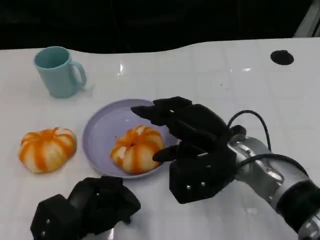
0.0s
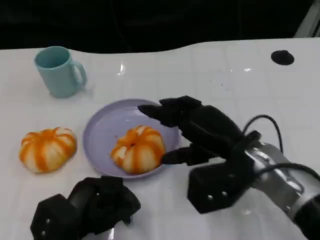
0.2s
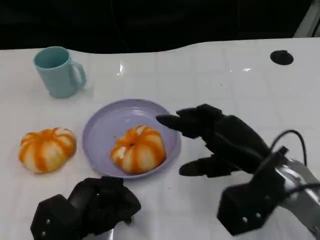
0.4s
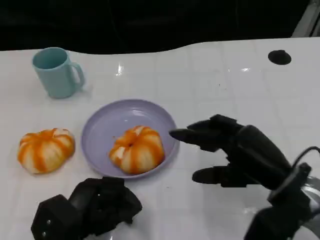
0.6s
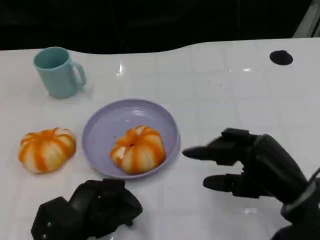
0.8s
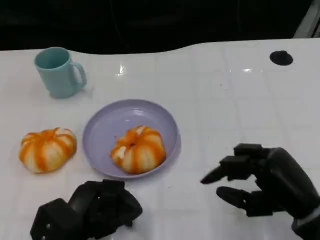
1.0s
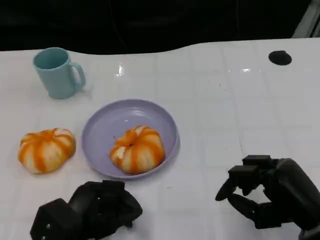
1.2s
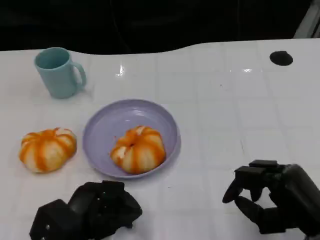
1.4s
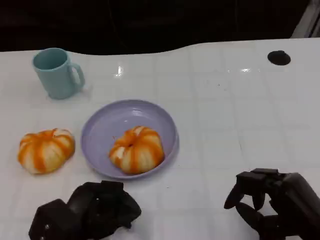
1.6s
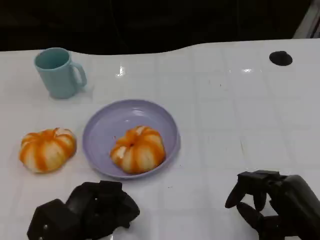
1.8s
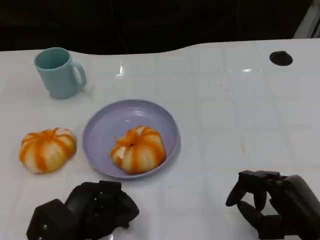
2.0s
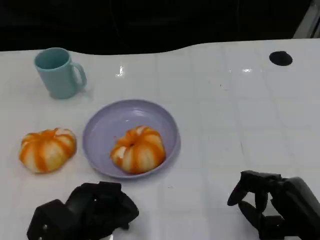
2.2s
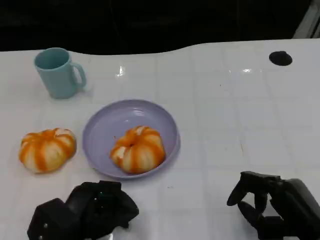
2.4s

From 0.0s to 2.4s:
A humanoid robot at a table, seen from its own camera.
Task of the whole recording: Grasp the bread from the table and place it into the plate.
From 0.0s to 1.2s: The right hand heads to the right and backward, covering roughly 15 cm.
From 1.2s to 2.4s: The hands make only small movements.

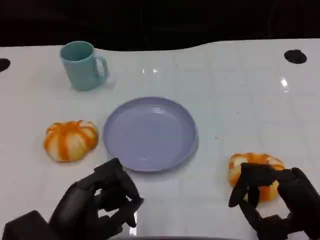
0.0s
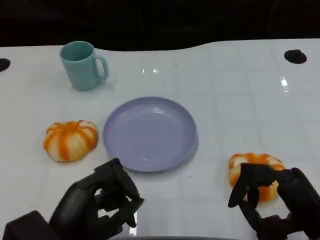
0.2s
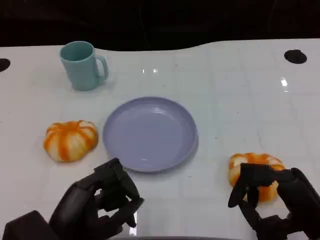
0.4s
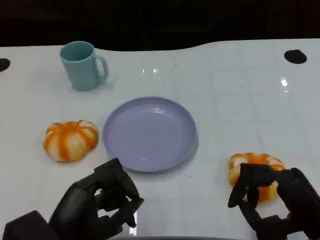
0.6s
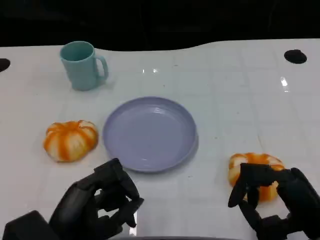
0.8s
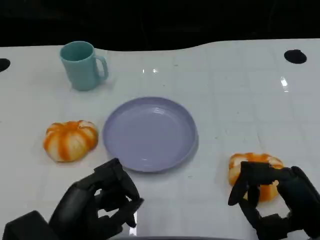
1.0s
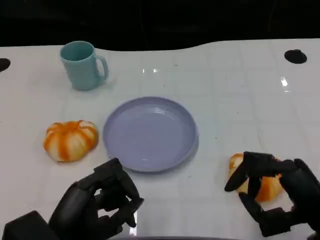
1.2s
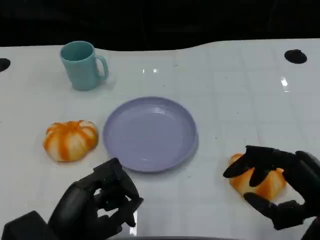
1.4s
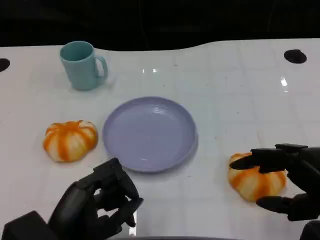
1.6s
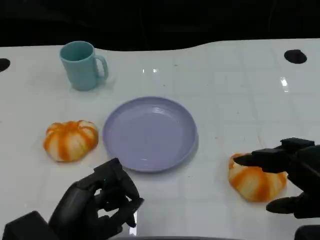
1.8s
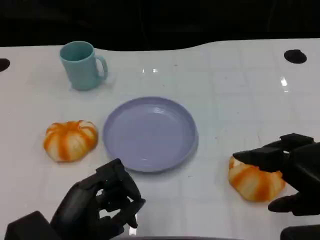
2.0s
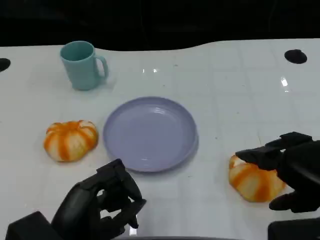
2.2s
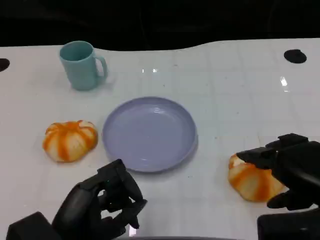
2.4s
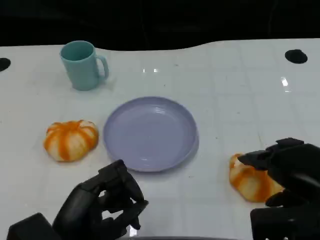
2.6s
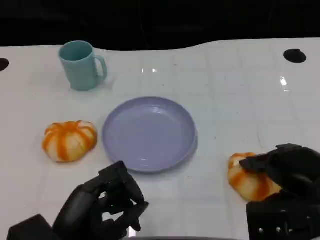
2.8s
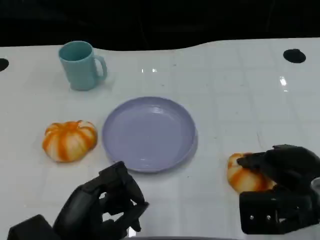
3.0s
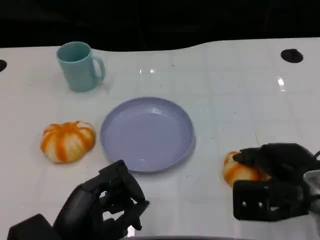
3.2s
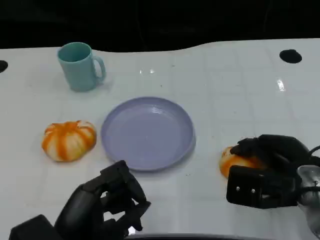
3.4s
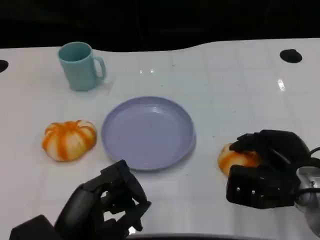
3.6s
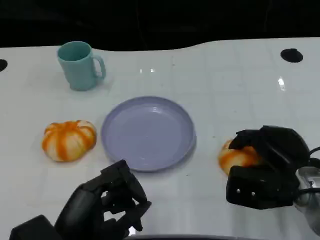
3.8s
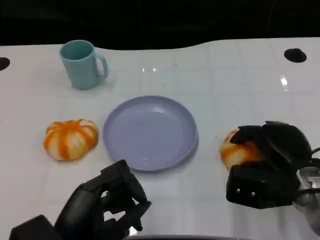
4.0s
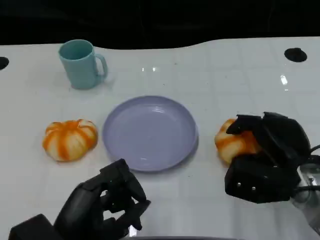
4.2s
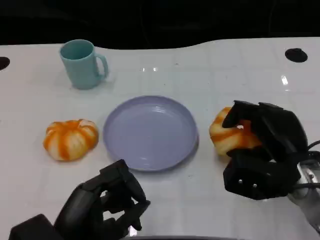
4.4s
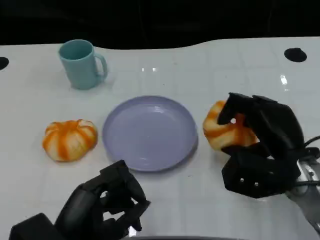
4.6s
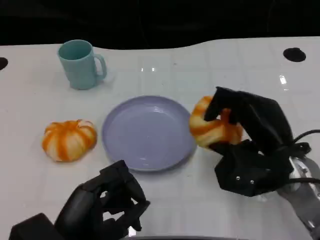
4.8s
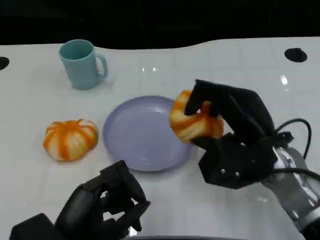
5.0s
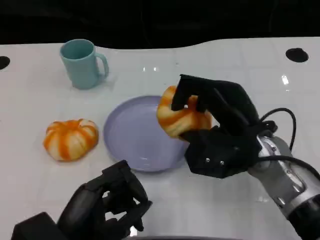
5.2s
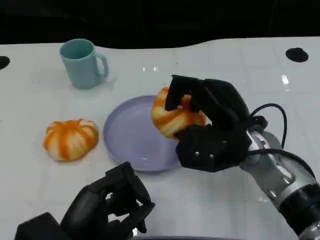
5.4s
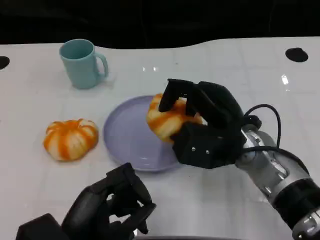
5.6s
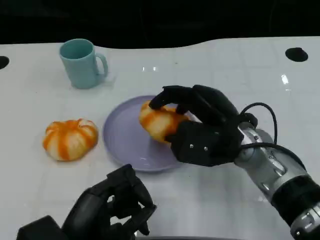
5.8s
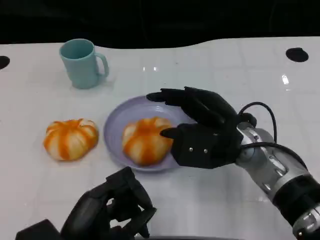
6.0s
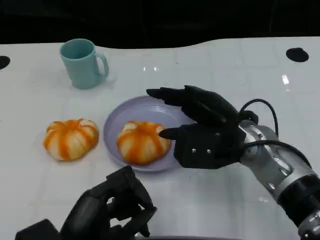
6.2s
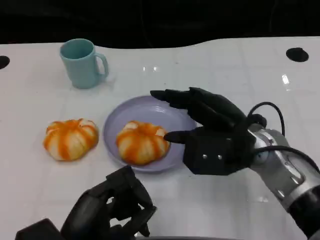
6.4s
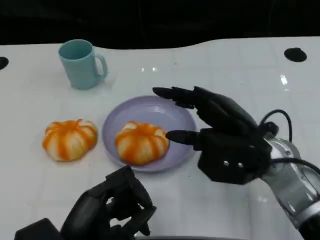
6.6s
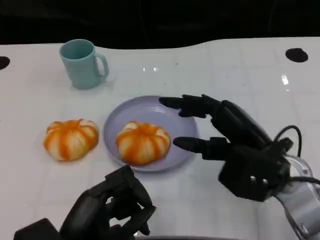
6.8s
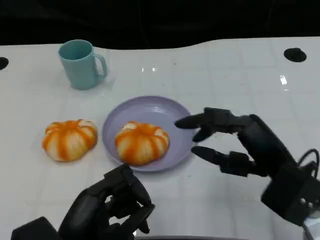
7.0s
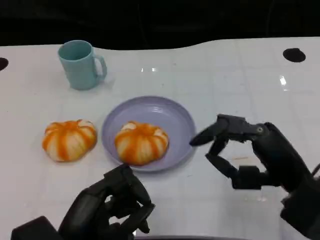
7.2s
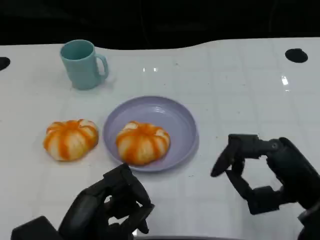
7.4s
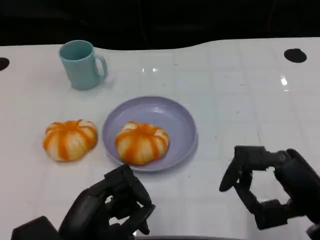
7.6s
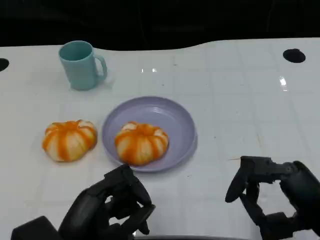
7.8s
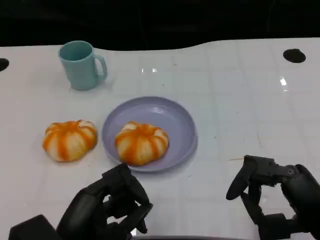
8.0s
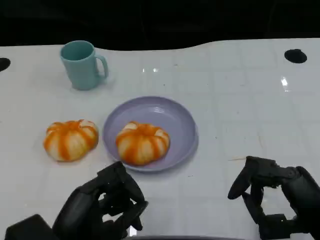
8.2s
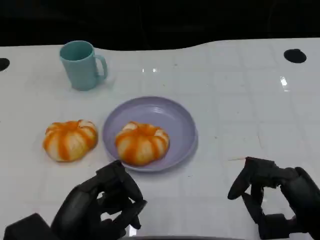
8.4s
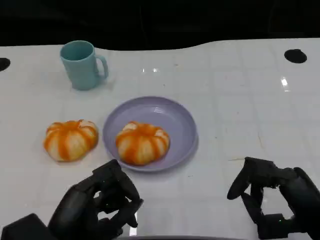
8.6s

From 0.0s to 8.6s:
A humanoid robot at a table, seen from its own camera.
Task of the whole recording: Grasp the bread from the table and place it into the plate.
From 0.0s to 1.4s: The right hand is displaced upward by approximately 5 cm.
From 1.4s to 2.8s: The right hand is displaced forward by about 5 cm.
From 2.8s to 4.4s: The right hand ends up roughly 5 cm from where it was.
From 4.4s to 5.8s: The right hand heads to the left, covering some 10 cm.
From 5.8s to 7.2s: The right hand moves backward and to the right, about 15 cm.
From 7.2s to 8.6s: The right hand moves roughly 5 cm.

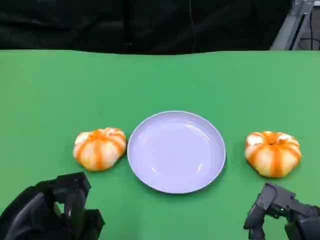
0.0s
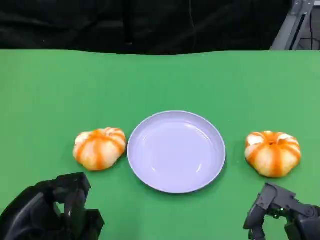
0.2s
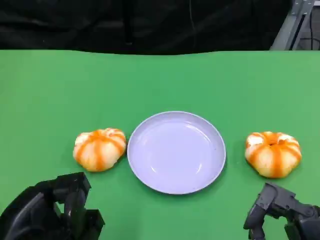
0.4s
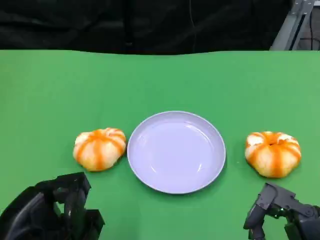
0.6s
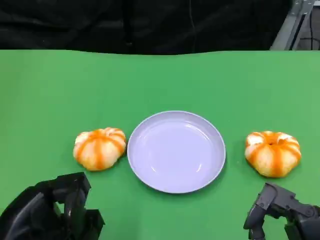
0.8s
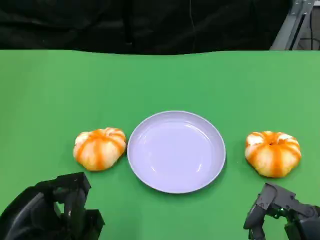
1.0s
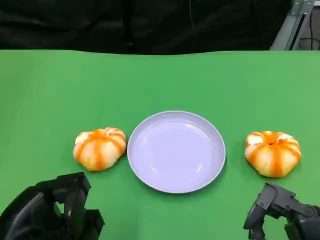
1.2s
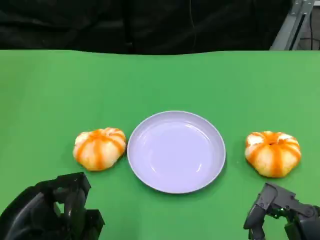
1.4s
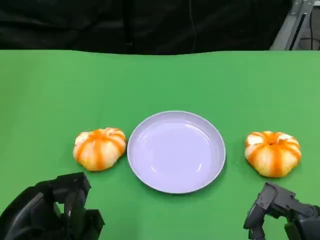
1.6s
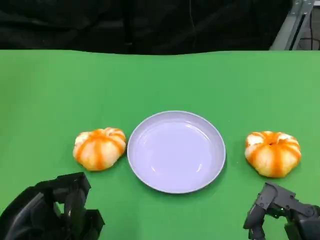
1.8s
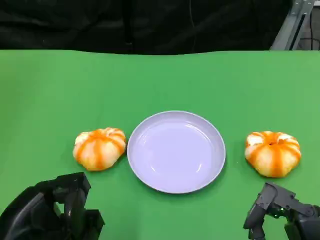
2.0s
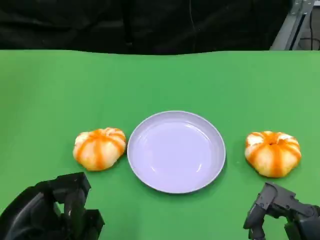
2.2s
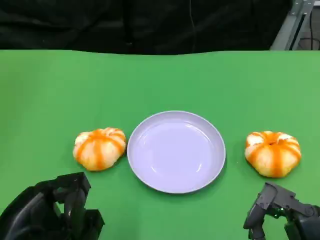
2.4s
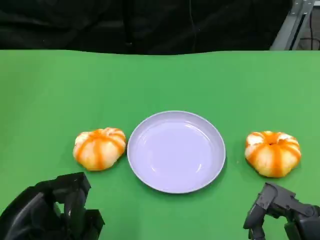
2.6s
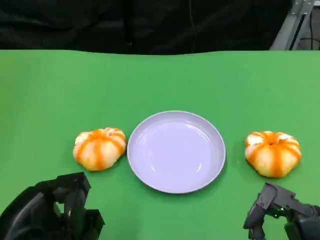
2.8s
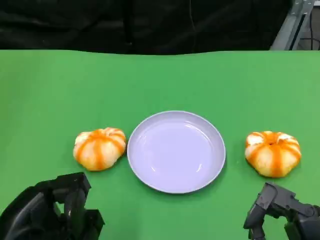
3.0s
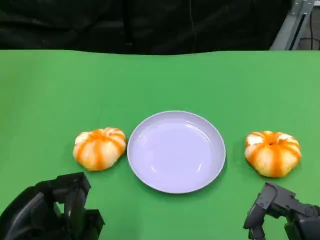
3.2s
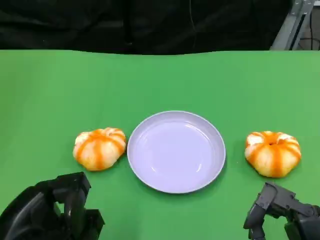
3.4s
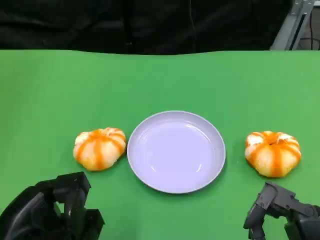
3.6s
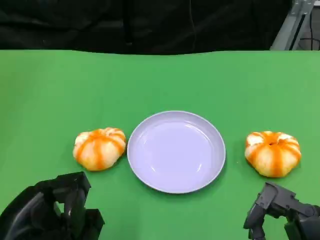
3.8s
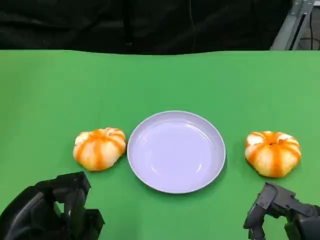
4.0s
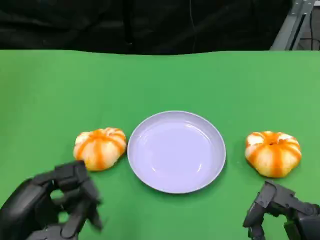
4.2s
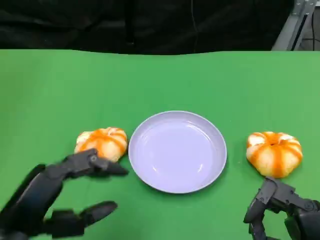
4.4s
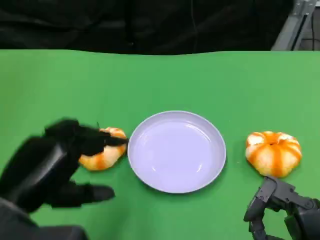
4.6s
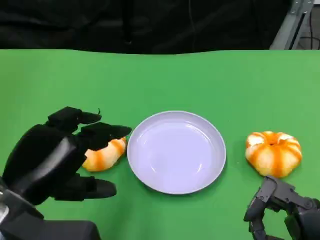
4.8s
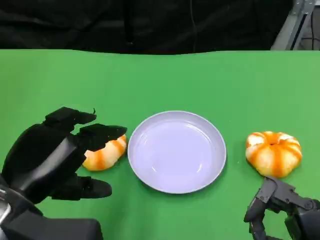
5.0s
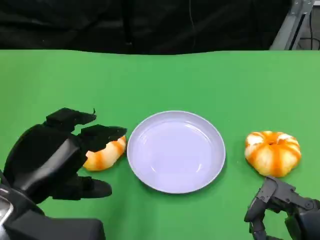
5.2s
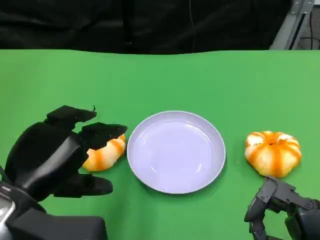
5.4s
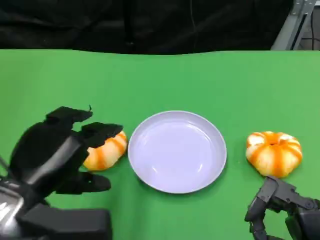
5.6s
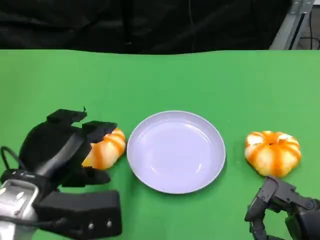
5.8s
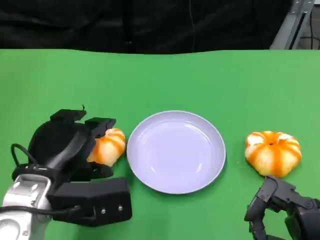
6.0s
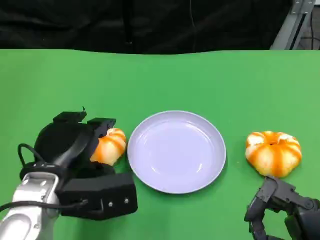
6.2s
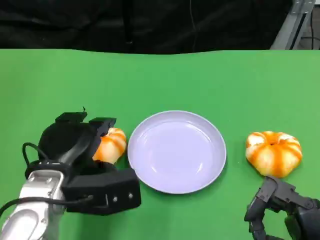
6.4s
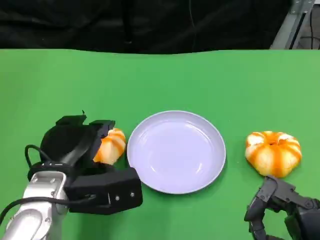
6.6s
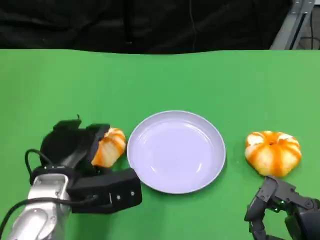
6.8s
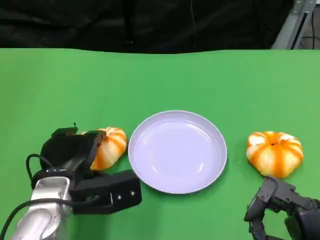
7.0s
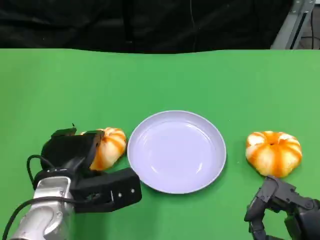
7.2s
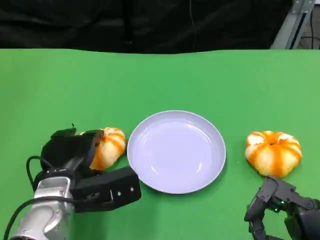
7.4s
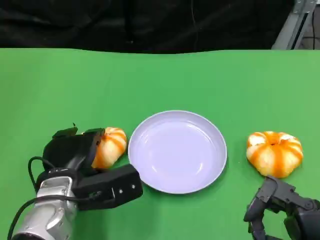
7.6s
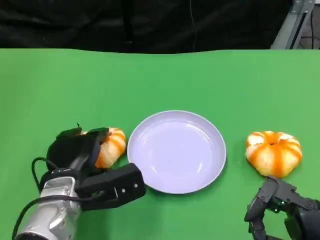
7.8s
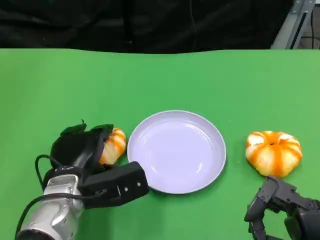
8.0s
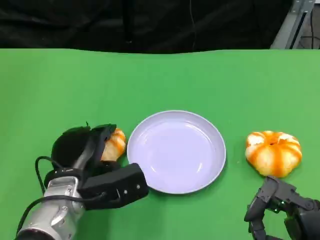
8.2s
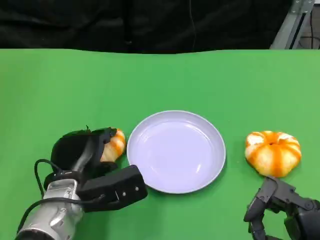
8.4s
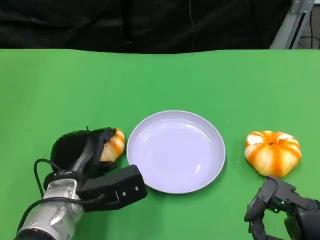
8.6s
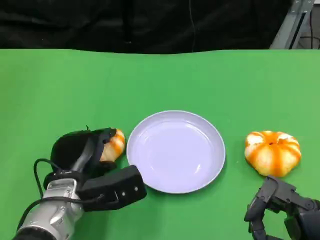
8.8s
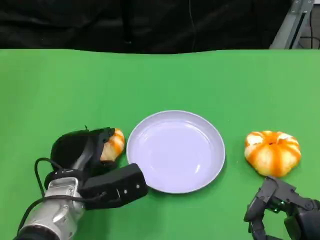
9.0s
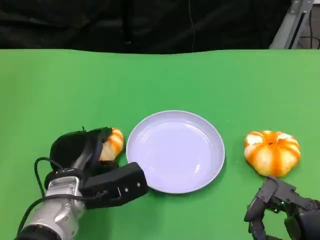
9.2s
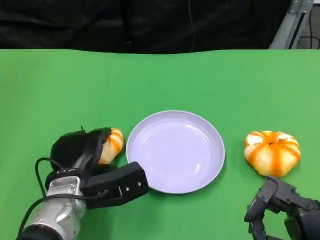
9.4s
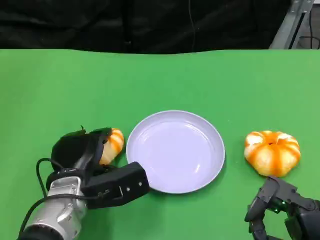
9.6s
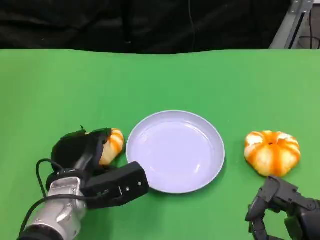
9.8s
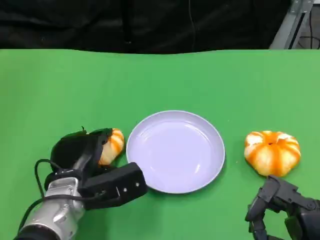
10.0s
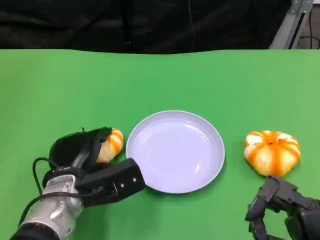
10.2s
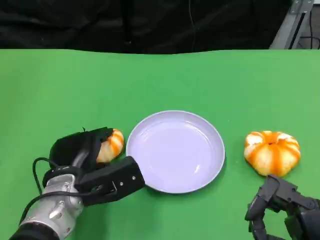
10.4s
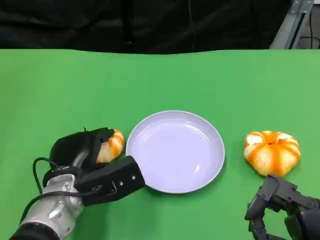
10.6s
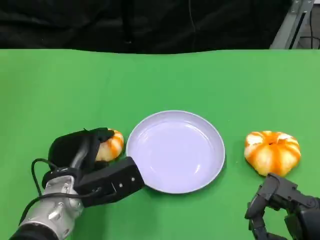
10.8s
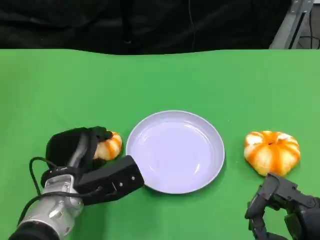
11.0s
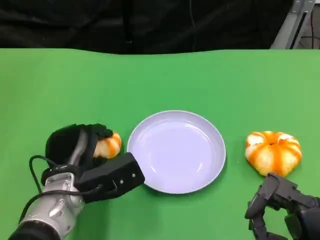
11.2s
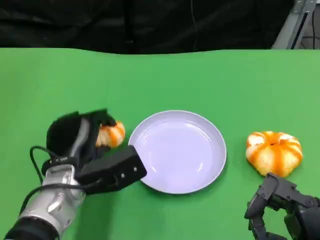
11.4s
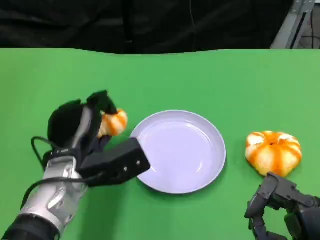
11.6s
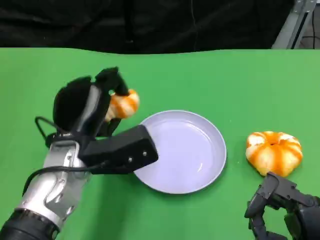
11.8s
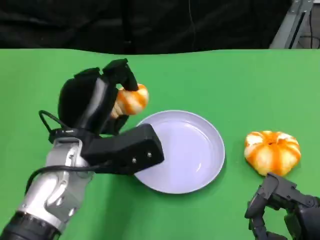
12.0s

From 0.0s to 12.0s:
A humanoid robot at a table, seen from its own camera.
Task of the whole recording: Grasp the bread from the table and place it into the plate.
From 0.0s to 3.0s: Both hands stay about where they are.
From 4.4s to 6.0s: The left hand moves forward, roughly 10 cm.
From 6.0s to 7.6s: The left hand is displaced downward by some 5 cm.
From 7.6s to 10.4s: There are only small adjustments of the hands.
From 10.4s to 12.0s: The left hand shifts about 10 cm upward.
